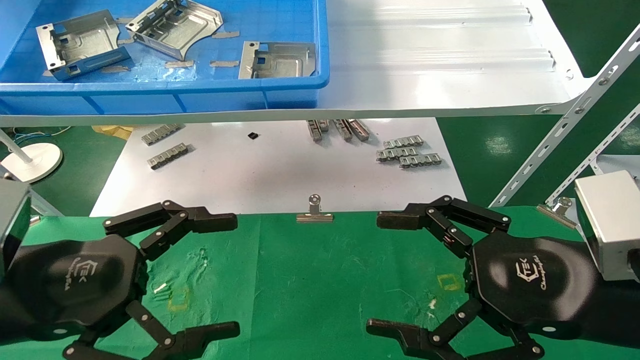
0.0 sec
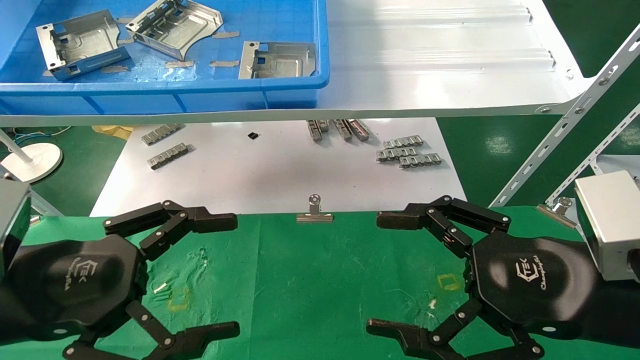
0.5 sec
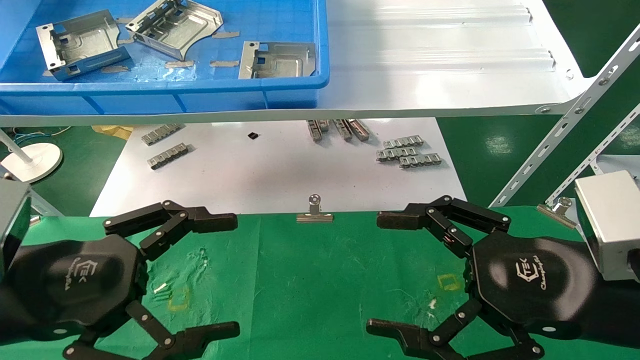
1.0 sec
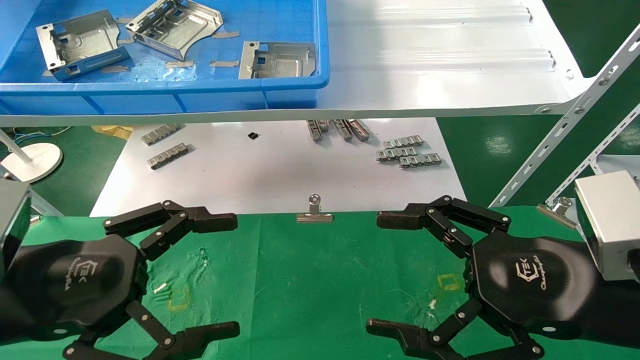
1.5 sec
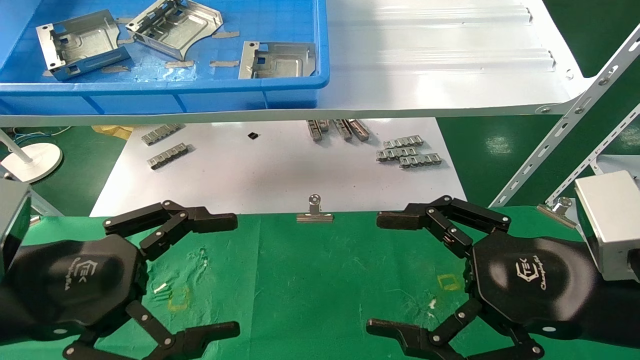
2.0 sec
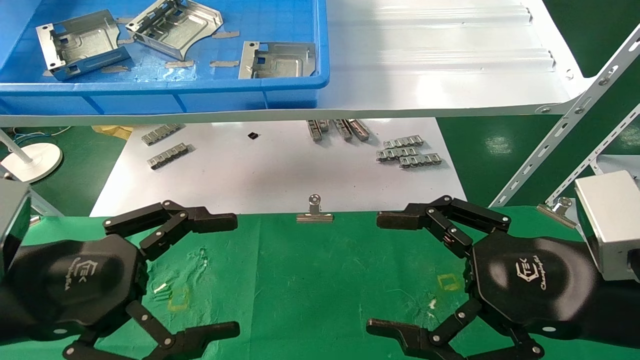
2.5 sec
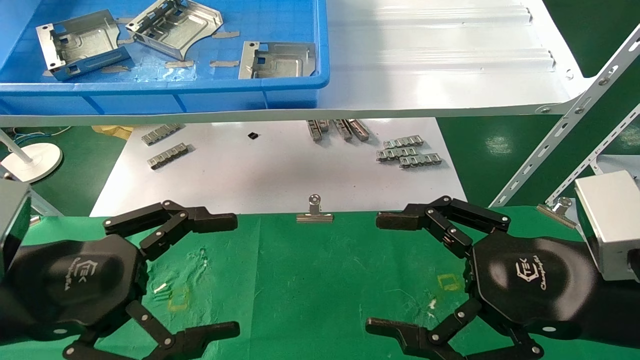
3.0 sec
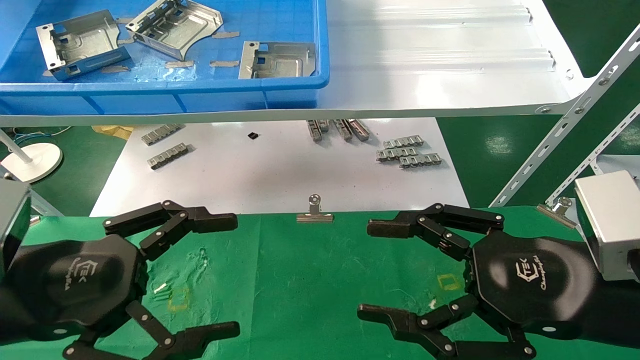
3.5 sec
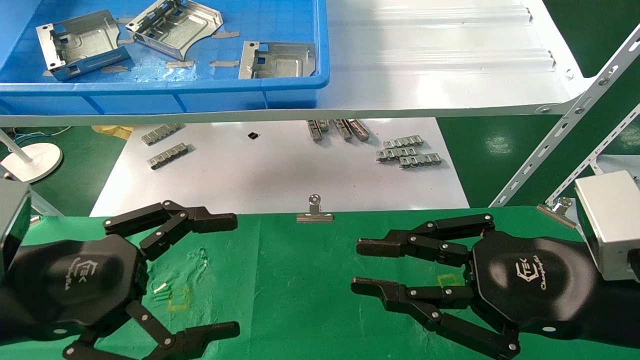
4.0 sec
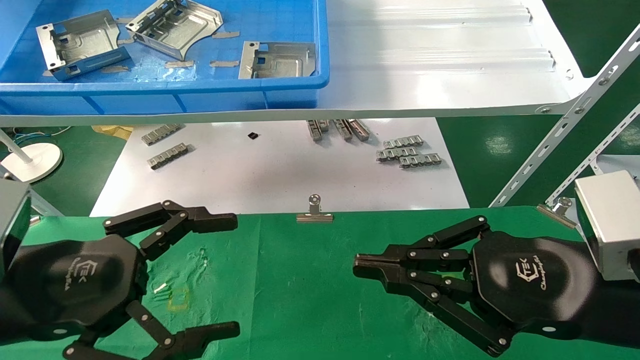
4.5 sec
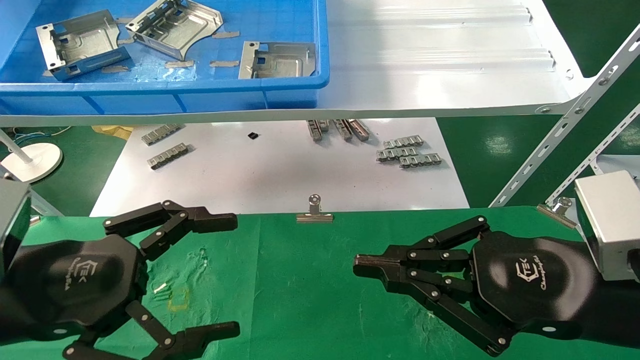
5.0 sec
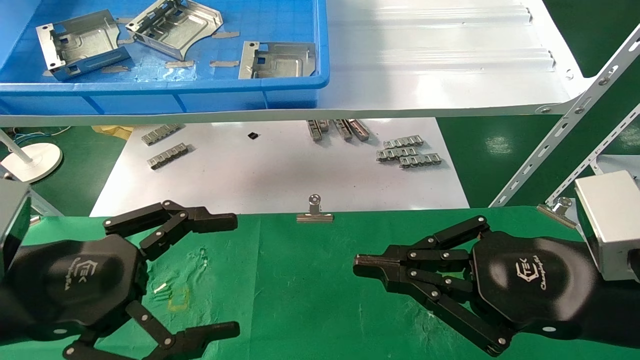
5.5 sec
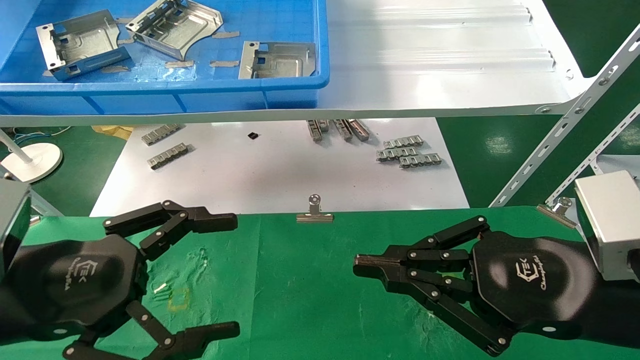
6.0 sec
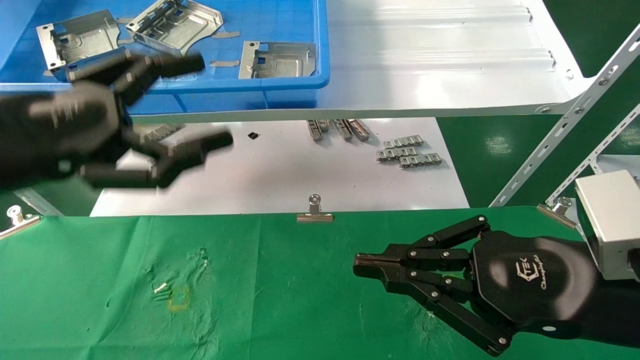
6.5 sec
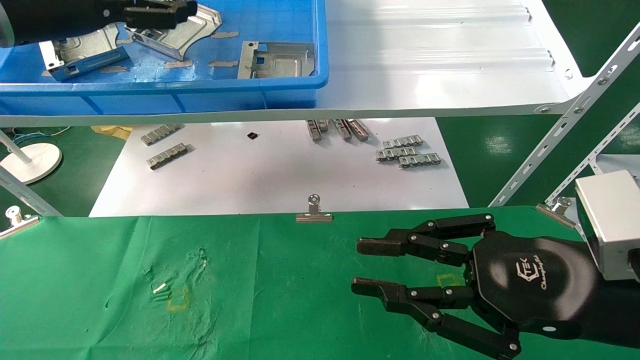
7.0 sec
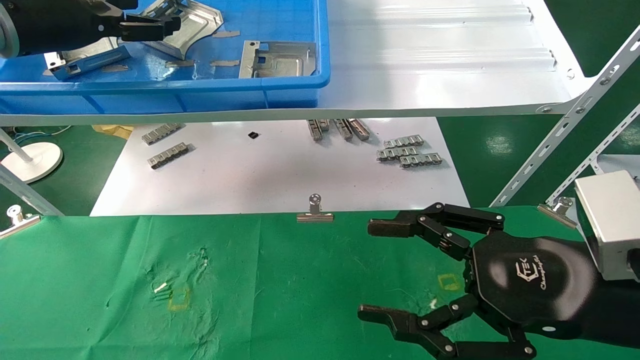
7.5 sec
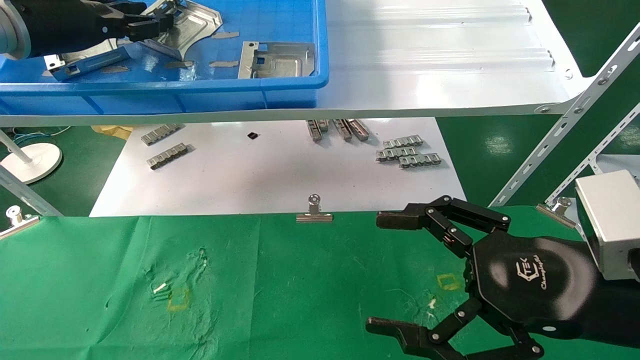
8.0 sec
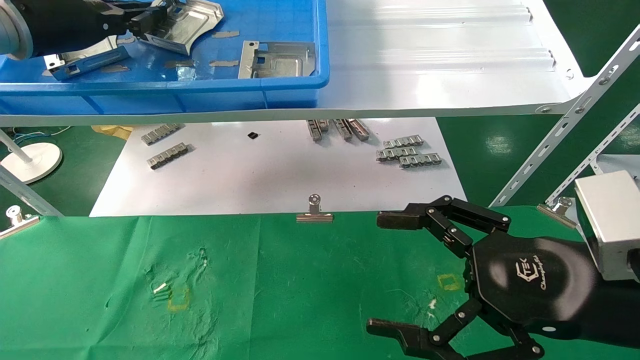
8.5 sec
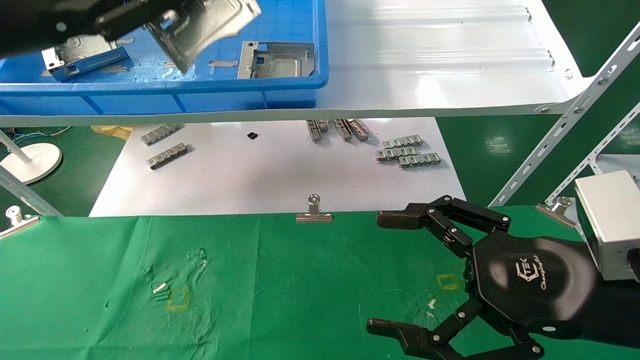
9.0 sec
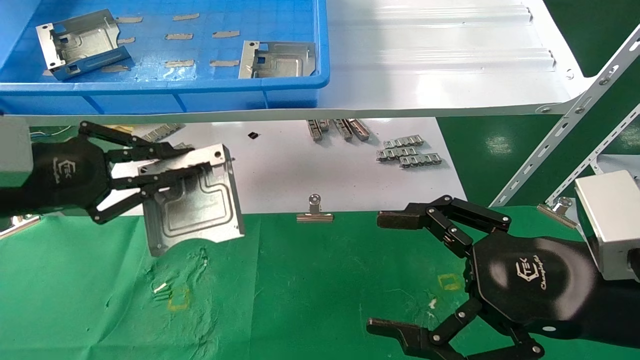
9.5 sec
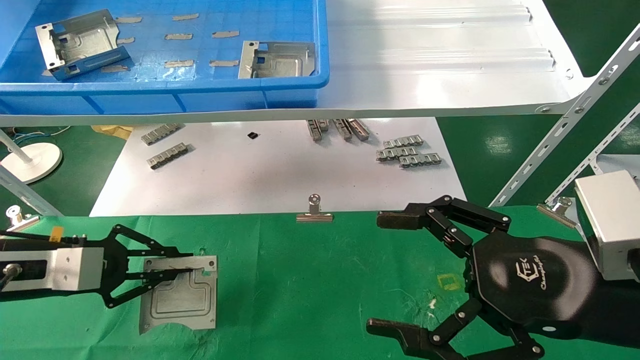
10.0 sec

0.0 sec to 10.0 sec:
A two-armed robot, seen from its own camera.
Task of the whole recording: use the mechanical arm to pick up the parts and place them on the table.
Step, 6.5 sec to 8.5 sec: Pick up the hard drive bracket from the feeding area.
0.0 sec to 2.0 sec: Both grippers stay about where they are.
2.0 sec to 4.0 sec: The right gripper closes.
4.0 sec to 6.0 sec: The right gripper closes up.
6.0 sec to 8.0 sec: The left gripper goes about 30 cm forward and upward, and closes its fingers. Meanwhile the right gripper opens.
8.0 sec to 10.0 sec: The left gripper moves downward, about 25 cm, and closes.

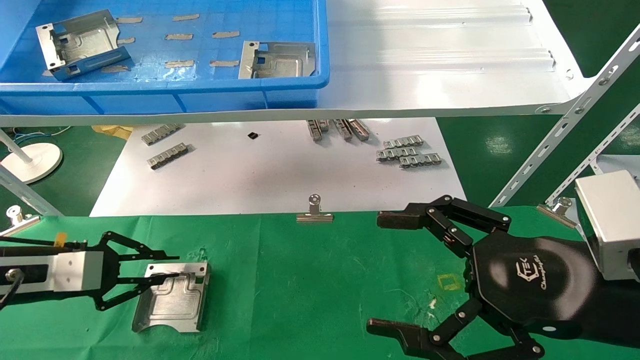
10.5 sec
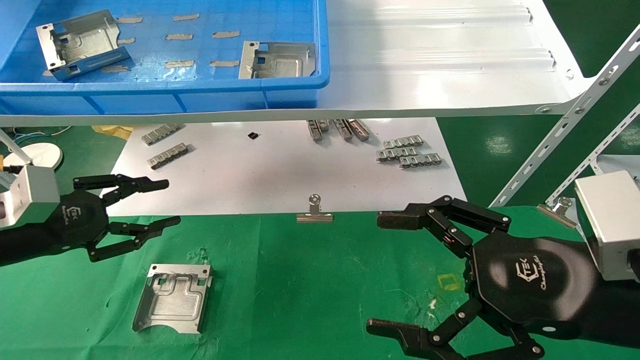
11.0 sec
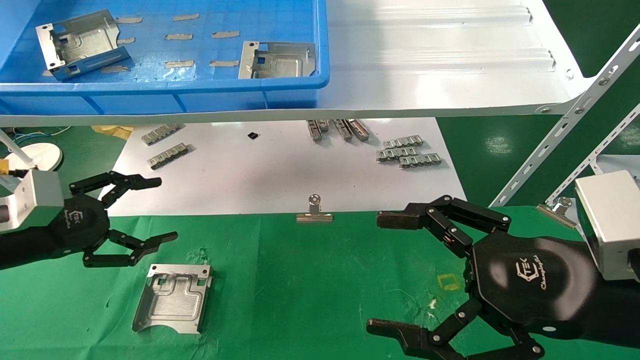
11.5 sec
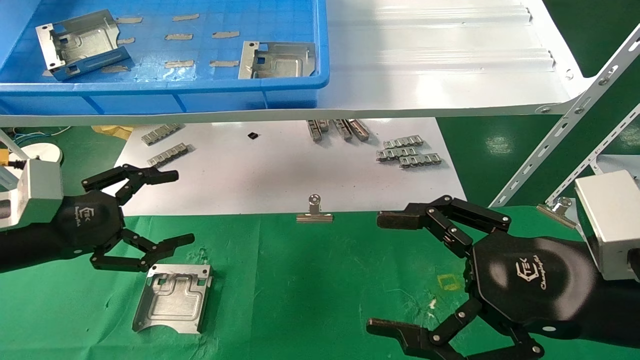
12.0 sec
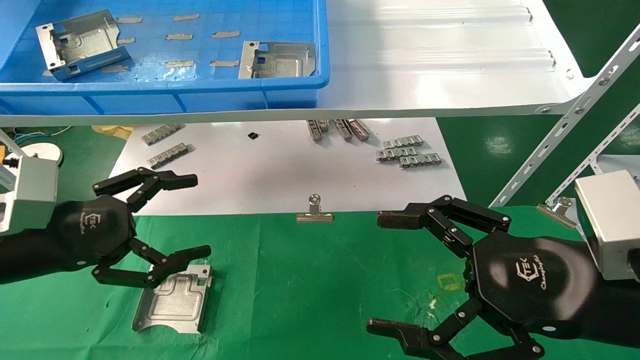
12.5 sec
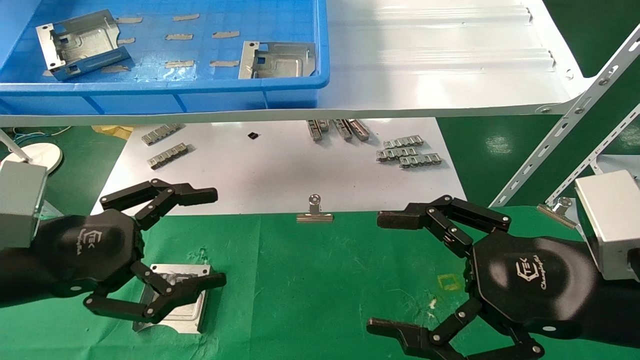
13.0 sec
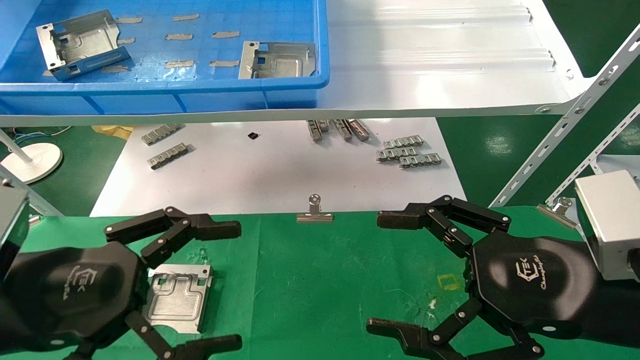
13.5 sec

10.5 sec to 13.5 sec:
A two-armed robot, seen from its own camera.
Task of the whole recording: use the mechanical arm to pick up the parts and place them on the table.
10.5 sec to 12.0 sec: The left gripper shifts by roughly 5 cm, and opens its fingers.
12.0 sec to 13.5 sec: The left gripper travels backward and to the right by roughly 15 cm.

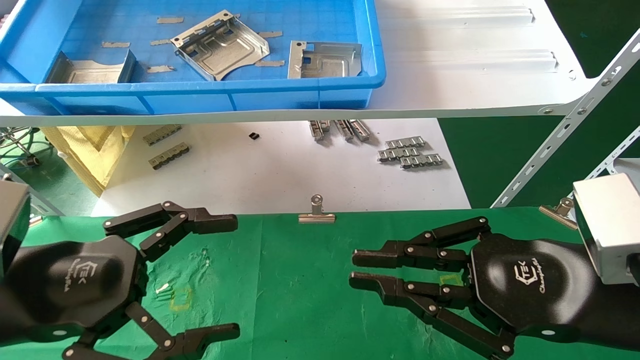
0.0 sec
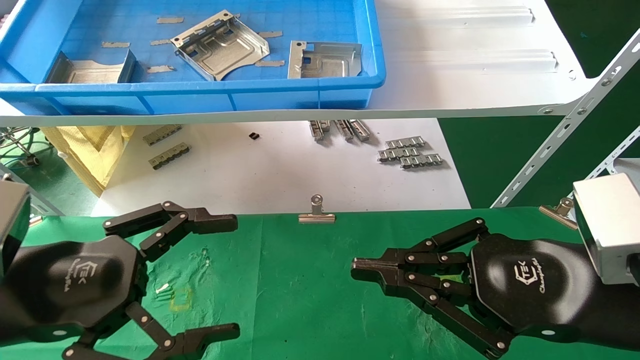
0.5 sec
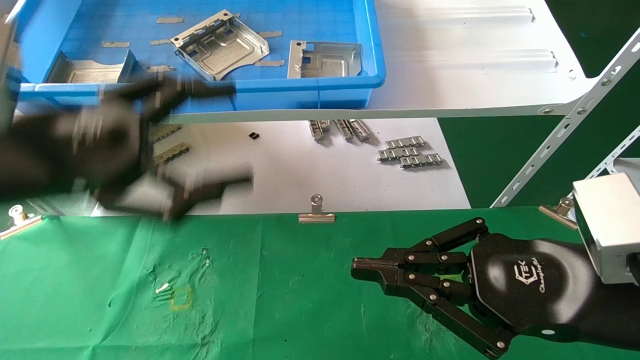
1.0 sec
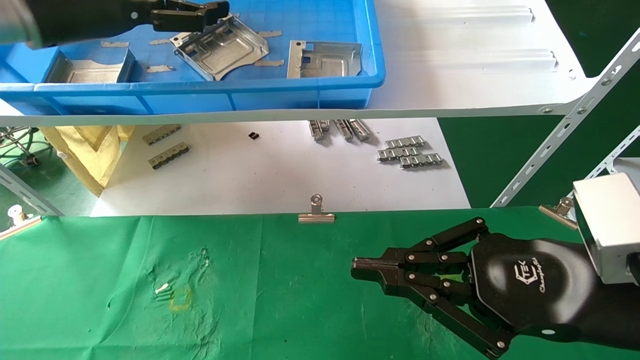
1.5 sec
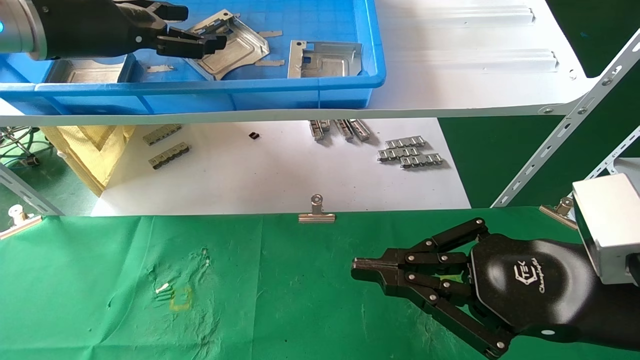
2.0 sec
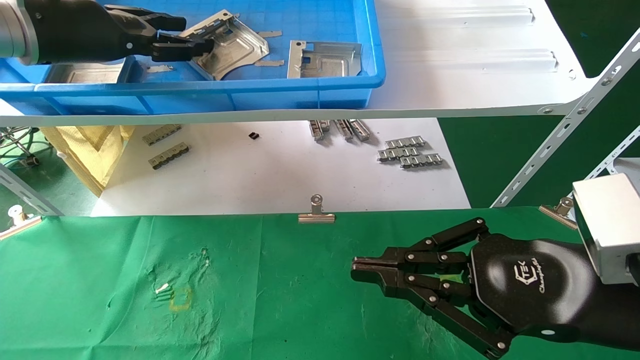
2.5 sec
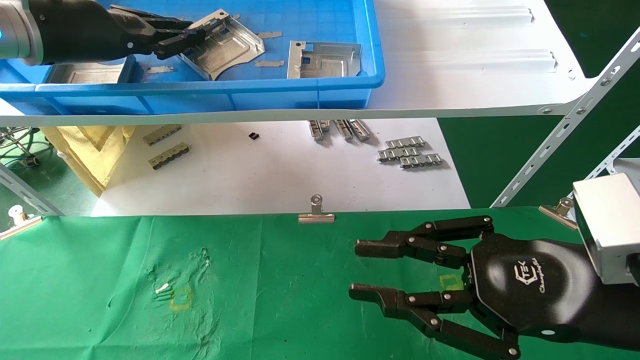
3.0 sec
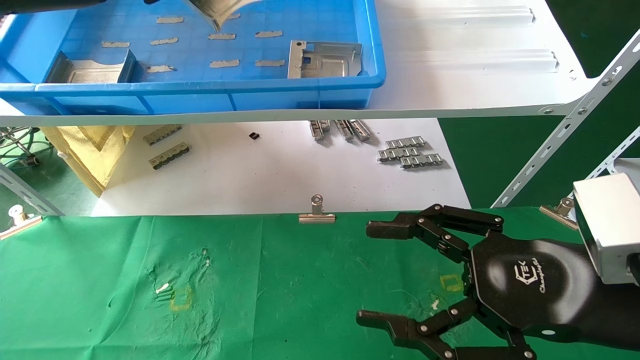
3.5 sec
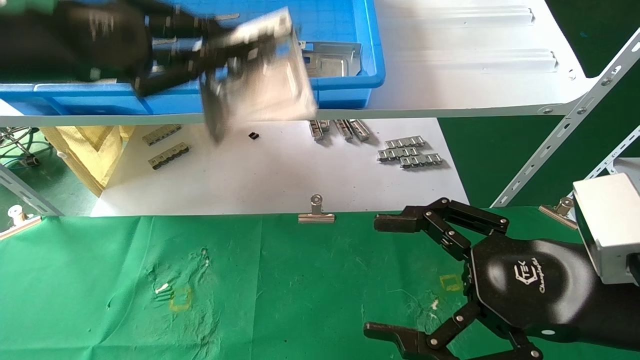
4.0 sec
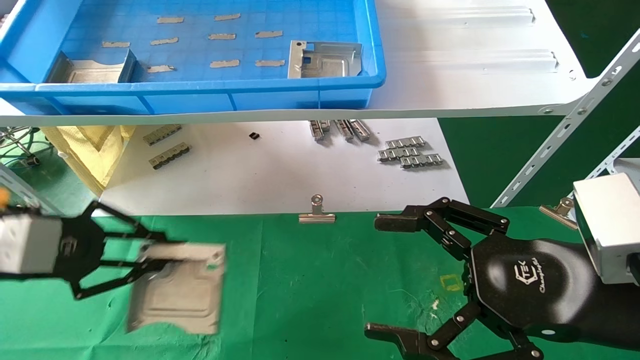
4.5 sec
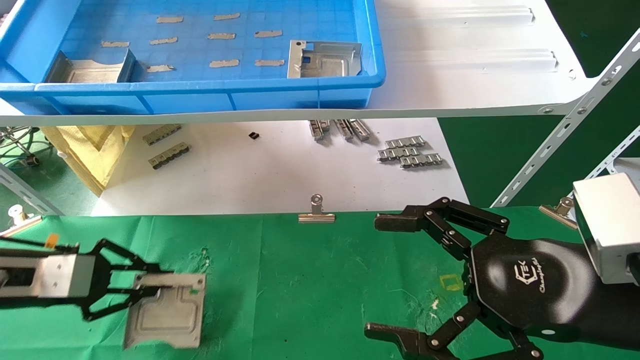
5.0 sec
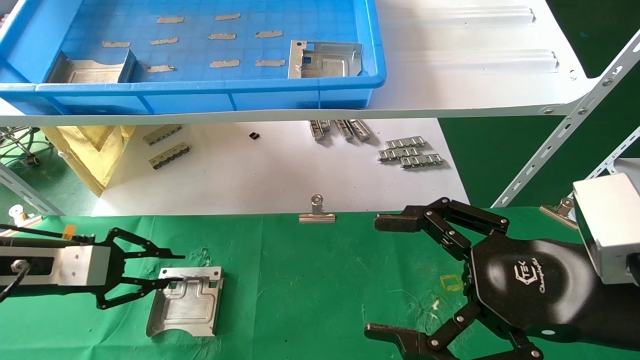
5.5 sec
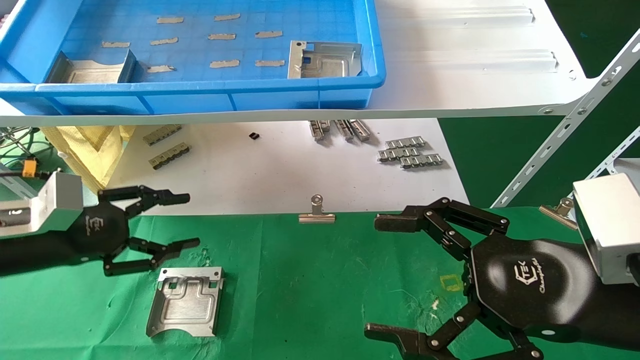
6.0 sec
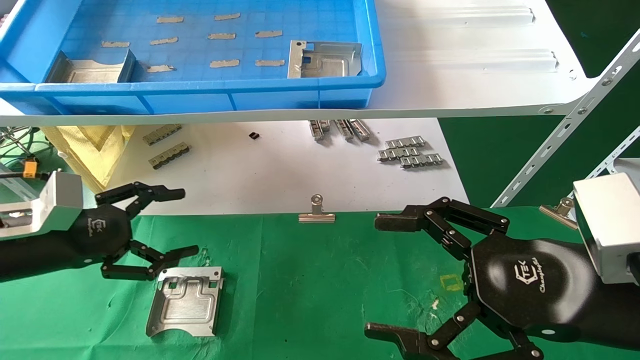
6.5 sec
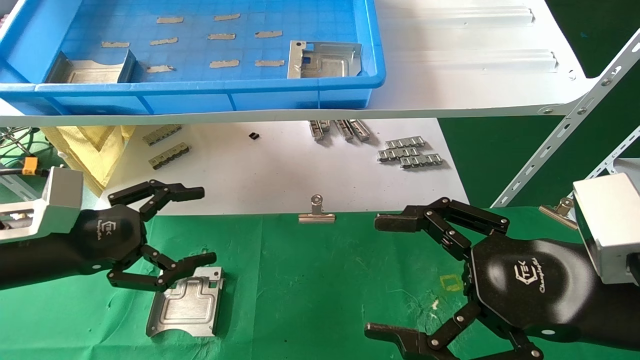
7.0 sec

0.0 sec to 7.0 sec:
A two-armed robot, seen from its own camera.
Task of the whole recording: use the mechanical arm to pick up the parts and place them on the table.
Step, 1.5 sec to 3.5 sec: Pick up the hard drive bracket from the feeding area.
Step, 4.0 sec to 6.5 sec: Place the hard drive bracket into the box.
0.0 sec to 2.0 sec: The left gripper heads upward and forward, covering some 30 cm.
2.0 sec to 3.5 sec: The left gripper closes up. The right gripper opens.
3.5 sec to 5.0 sec: The left gripper moves downward, roughly 30 cm, while the right gripper opens.
5.0 sec to 7.0 sec: The left gripper travels to the right by roughly 5 cm, and opens its fingers.
